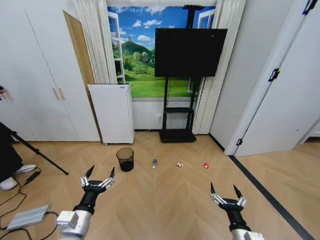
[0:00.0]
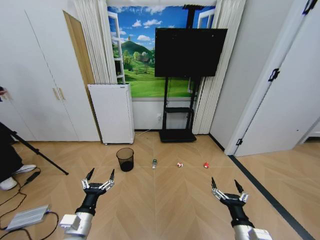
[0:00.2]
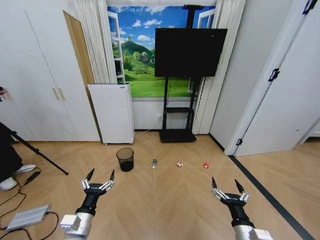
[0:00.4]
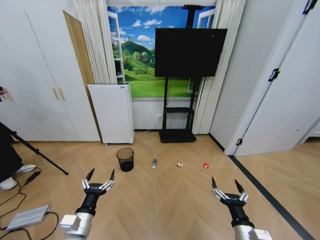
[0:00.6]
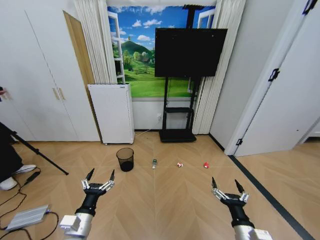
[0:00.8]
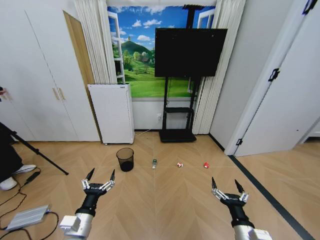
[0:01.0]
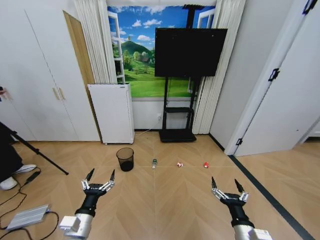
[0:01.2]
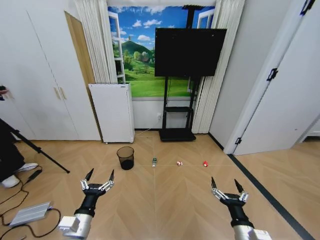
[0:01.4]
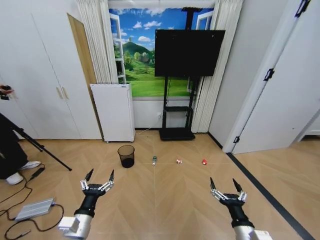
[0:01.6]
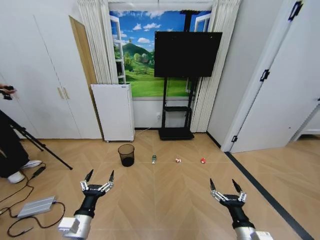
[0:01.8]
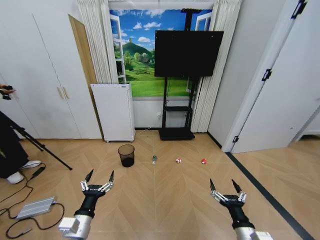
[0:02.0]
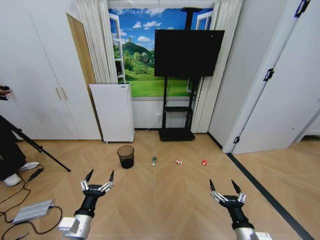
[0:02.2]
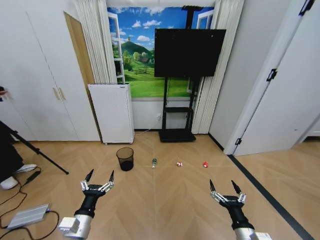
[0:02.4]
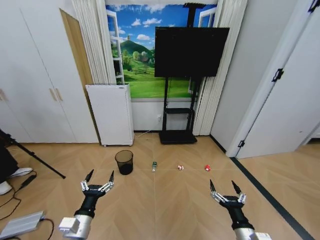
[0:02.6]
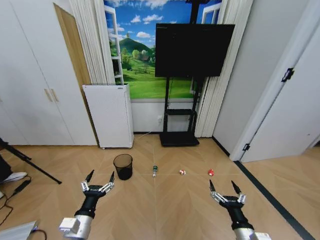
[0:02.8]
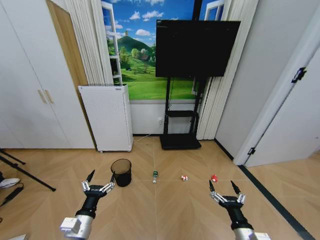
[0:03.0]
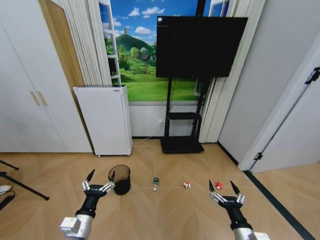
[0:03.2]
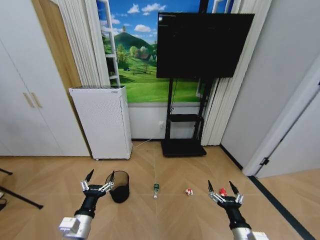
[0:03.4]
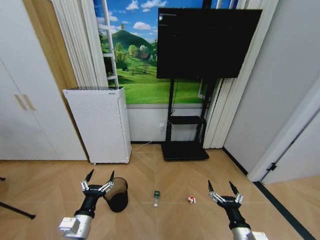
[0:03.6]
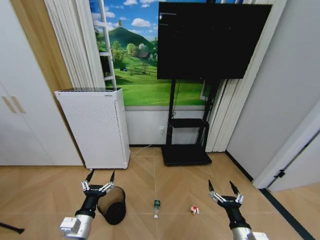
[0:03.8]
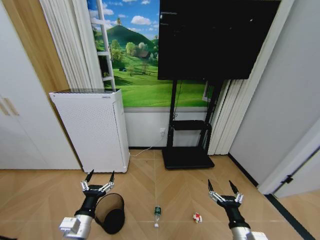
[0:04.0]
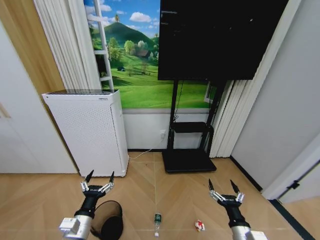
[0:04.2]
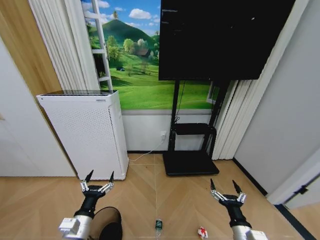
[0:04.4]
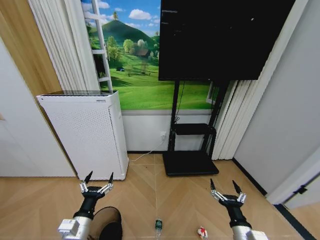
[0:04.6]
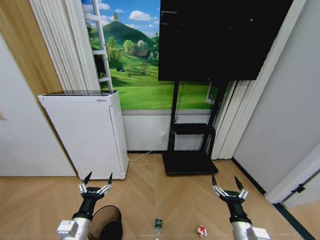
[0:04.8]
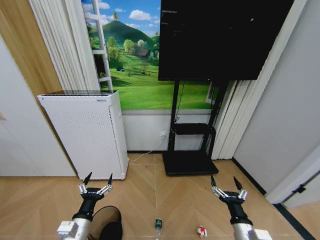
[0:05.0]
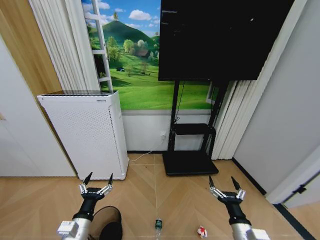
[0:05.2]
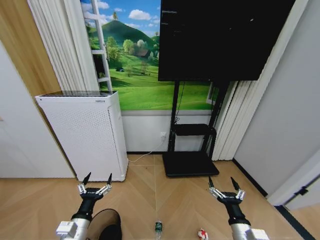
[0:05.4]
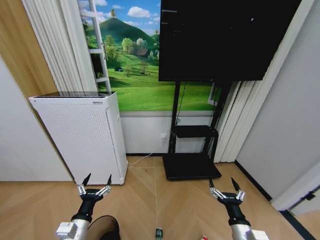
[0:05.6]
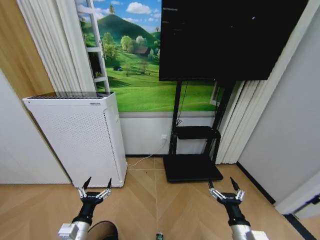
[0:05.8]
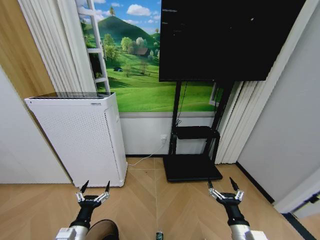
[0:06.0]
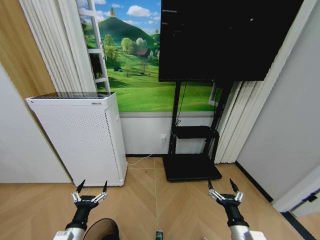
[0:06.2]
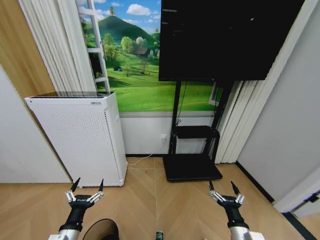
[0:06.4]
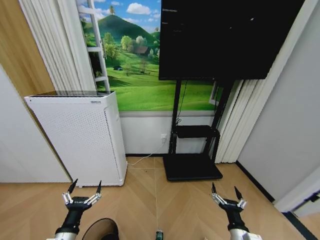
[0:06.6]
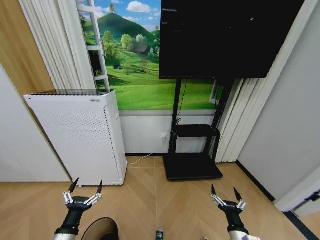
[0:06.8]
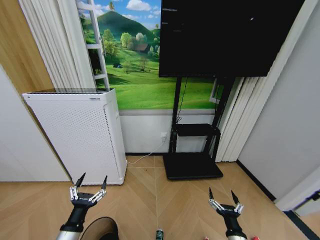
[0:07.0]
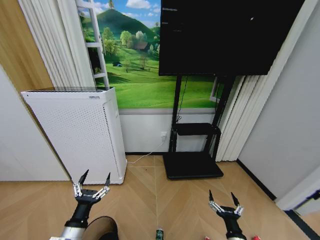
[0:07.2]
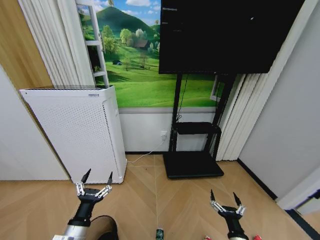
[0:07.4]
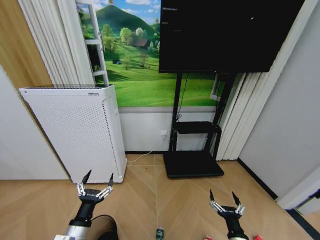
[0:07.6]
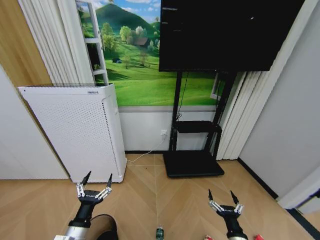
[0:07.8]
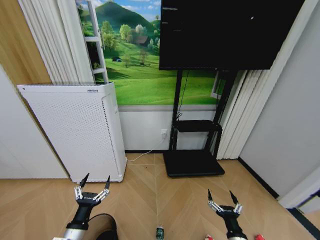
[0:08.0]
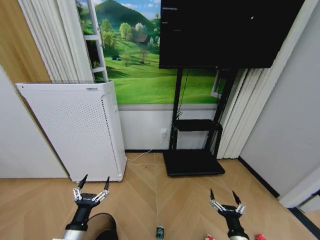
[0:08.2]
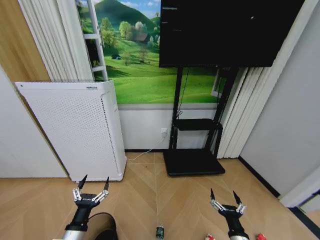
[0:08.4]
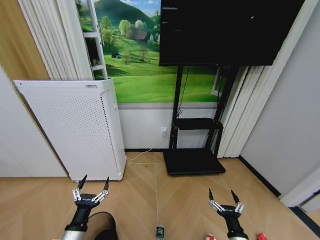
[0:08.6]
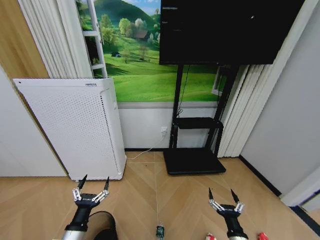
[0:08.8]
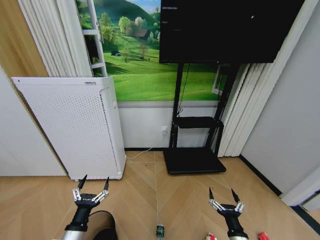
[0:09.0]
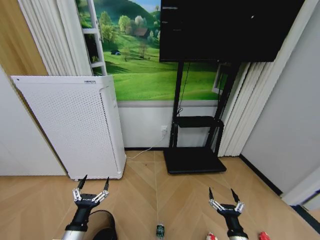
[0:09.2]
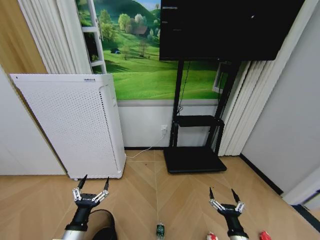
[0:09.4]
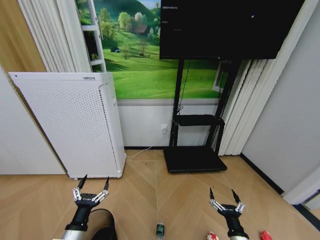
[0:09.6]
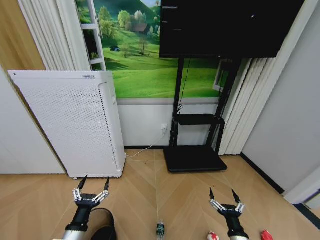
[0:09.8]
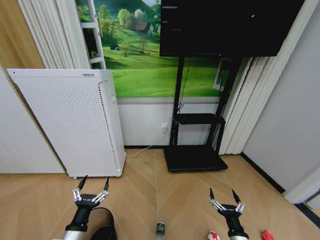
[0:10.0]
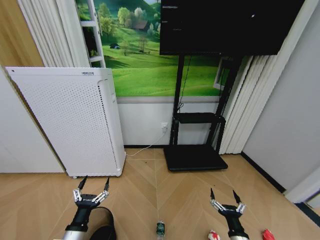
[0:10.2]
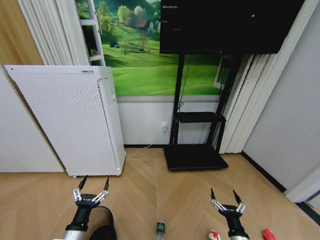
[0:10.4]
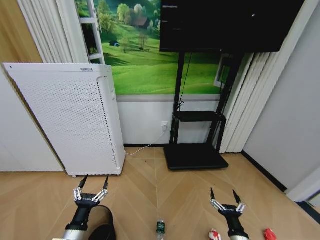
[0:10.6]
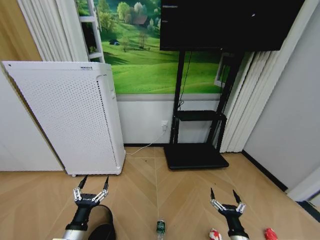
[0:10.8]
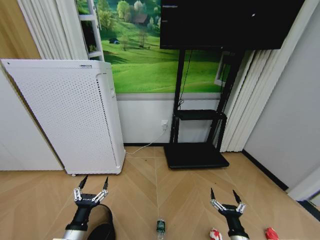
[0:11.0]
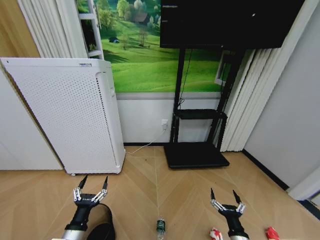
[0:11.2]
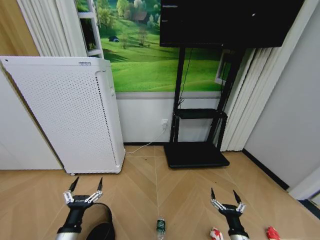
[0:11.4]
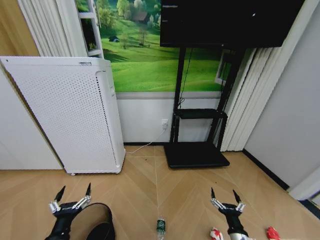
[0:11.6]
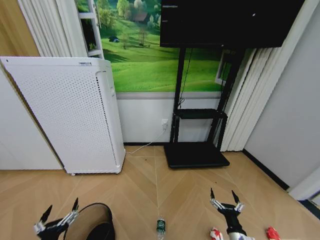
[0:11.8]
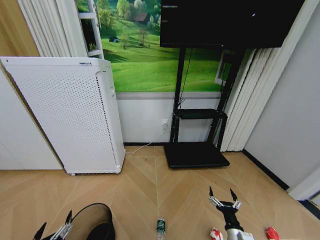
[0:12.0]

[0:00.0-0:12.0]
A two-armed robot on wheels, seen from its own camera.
Task of the whole recording: Pick up the trash bin and place the garbage on the floor into it.
0:06.0 to 0:07.6: The right gripper is displaced downward by roughly 5 cm.
0:07.6 to 0:09.0: The grippers make only small movements.
0:09.0 to 0:10.4: Both grippers stay put.
0:10.4 to 0:12.0: The left gripper is displaced backward and to the left by roughly 10 cm.

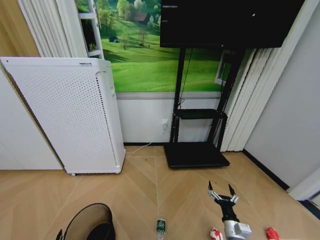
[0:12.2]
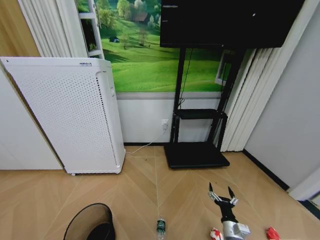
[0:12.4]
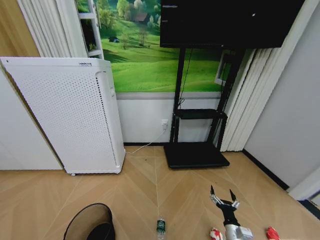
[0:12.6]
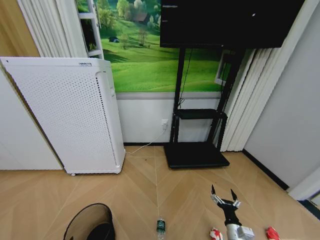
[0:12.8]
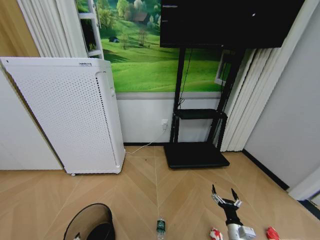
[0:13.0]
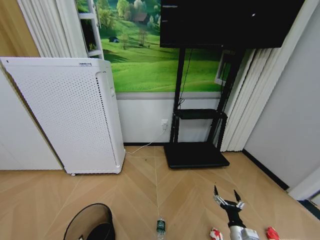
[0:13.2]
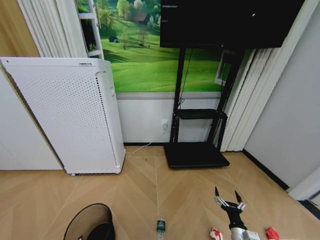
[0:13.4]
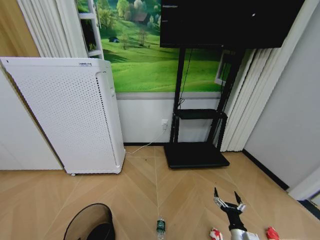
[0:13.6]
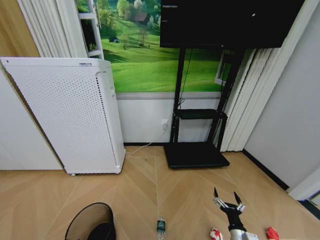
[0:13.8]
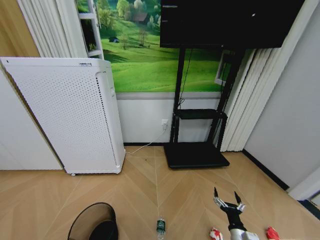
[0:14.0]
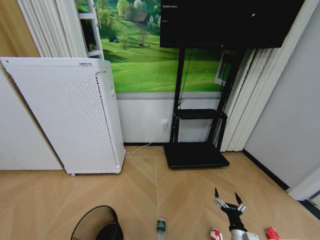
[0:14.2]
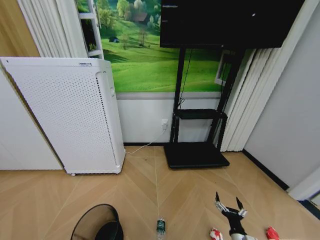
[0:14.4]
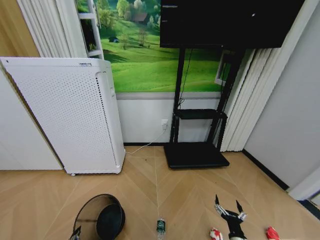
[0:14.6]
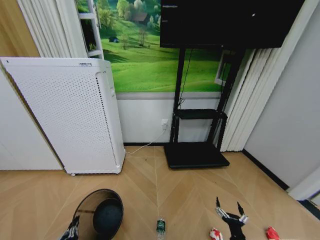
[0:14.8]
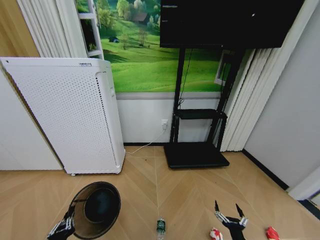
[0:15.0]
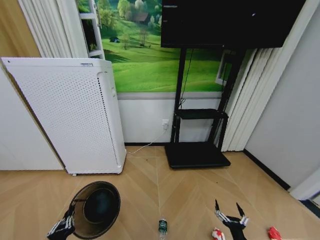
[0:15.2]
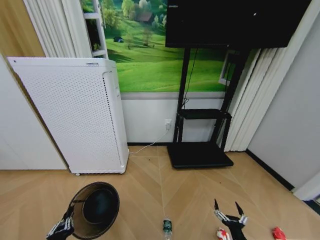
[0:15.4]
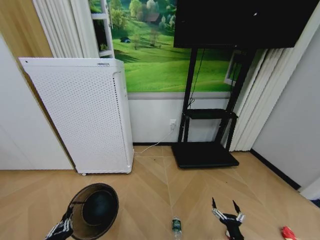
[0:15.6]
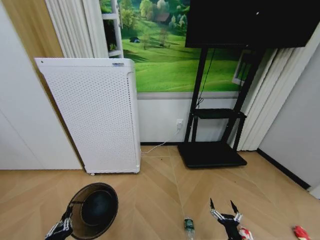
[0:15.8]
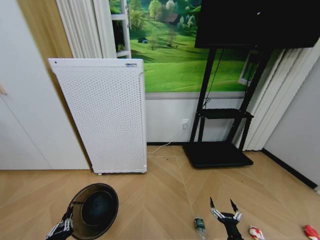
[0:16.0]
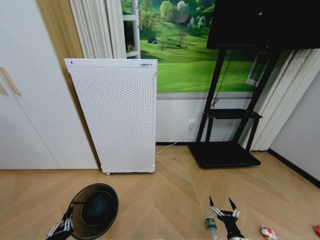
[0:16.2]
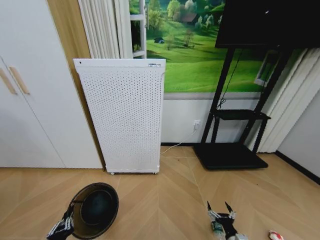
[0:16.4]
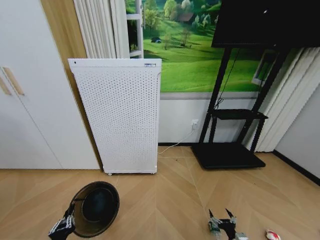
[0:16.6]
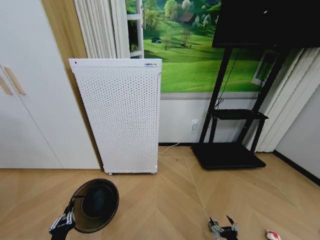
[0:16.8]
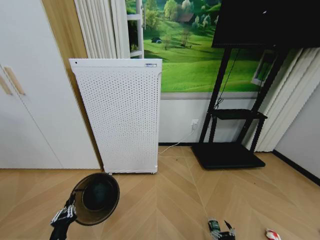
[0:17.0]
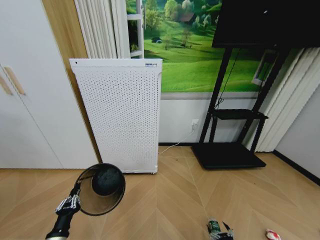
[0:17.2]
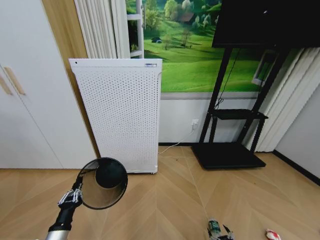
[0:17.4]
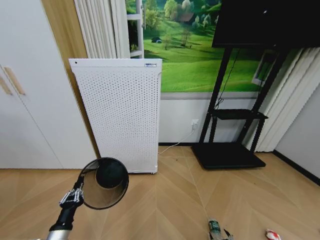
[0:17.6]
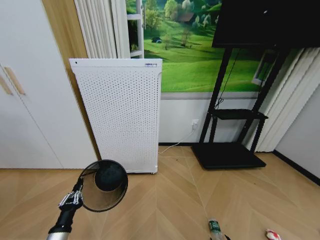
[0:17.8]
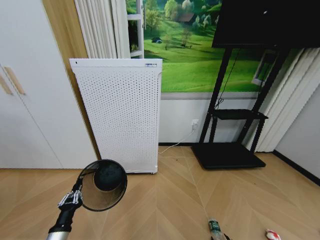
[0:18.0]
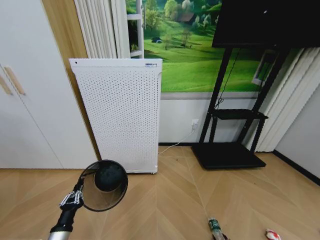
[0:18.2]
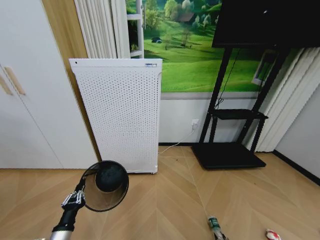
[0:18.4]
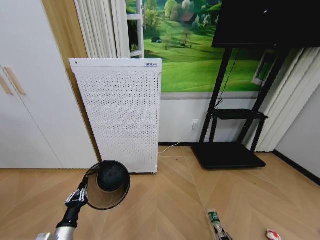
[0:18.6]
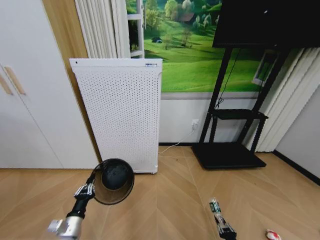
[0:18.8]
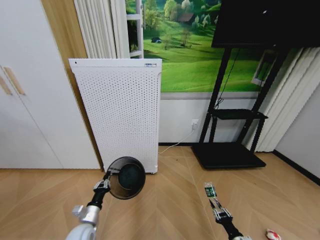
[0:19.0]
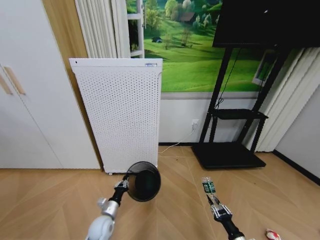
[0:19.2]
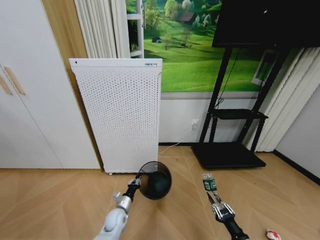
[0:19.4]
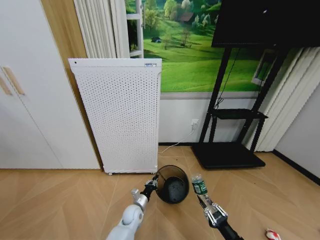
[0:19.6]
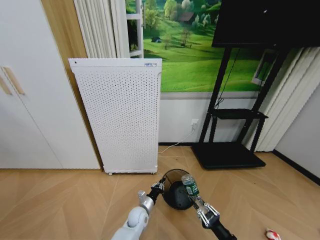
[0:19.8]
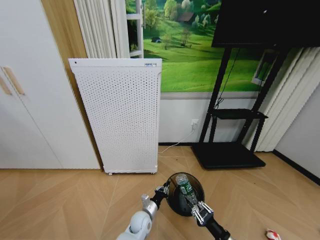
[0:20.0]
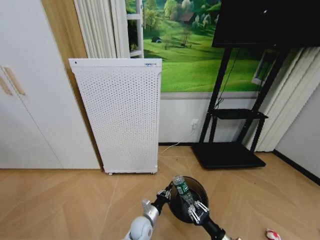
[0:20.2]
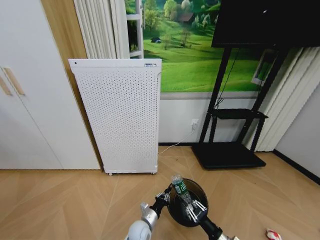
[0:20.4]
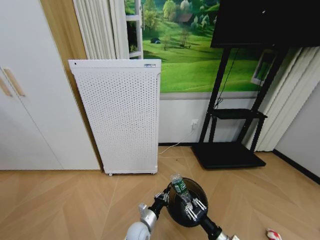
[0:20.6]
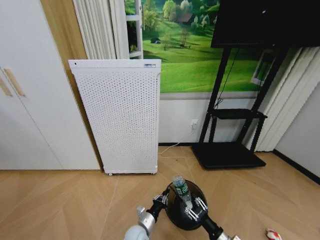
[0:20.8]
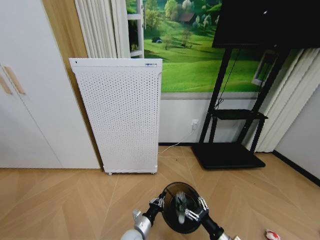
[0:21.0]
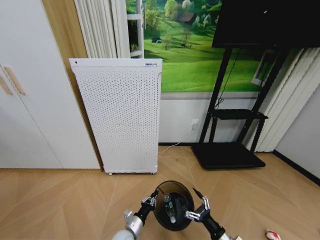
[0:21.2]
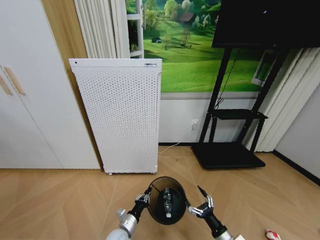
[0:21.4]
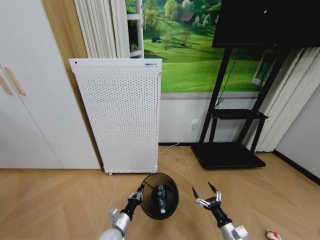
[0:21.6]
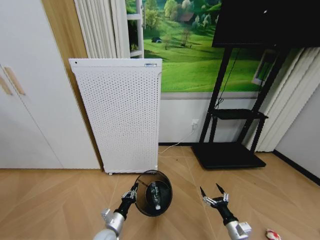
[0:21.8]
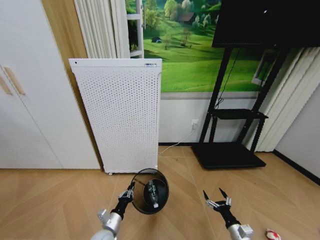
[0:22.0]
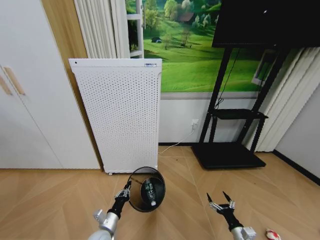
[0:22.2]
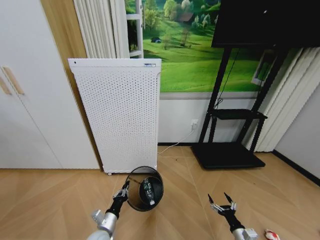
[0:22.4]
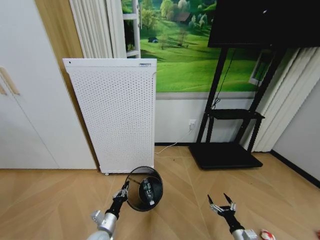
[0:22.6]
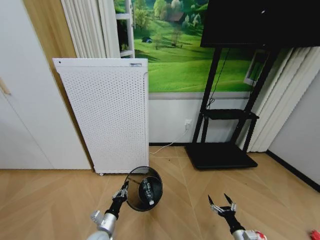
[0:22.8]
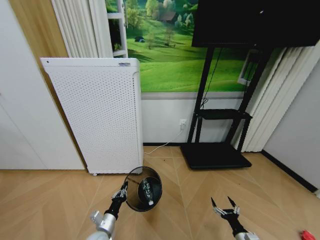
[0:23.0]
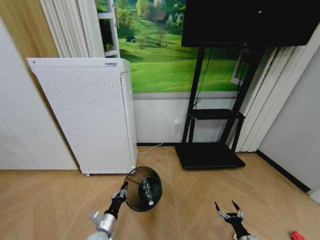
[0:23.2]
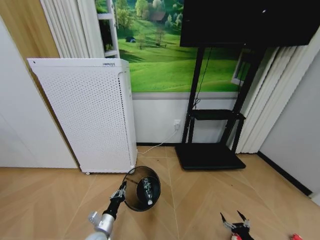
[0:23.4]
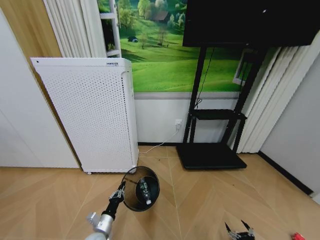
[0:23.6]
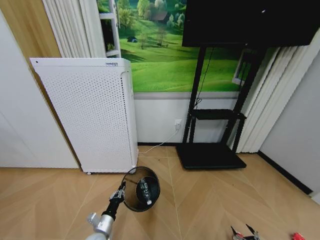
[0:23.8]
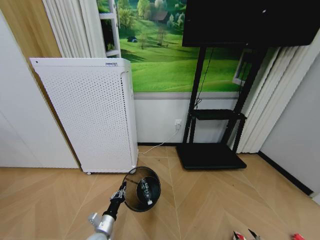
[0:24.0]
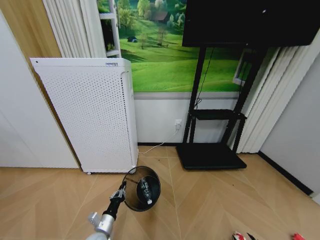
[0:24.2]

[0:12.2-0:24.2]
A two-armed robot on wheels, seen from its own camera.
Task of the whole recording: Pick up the trash bin and place the garbage on the floor into it.
0:13.8 to 0:15.2: The right gripper ends up roughly 5 cm from where it was. The left gripper closes its fingers.
0:15.2 to 0:16.6: The right gripper shifts by some 5 cm.
0:16.6 to 0:18.2: The right gripper moves downward, about 10 cm, and closes. The left gripper is displaced forward by some 5 cm.
0:18.2 to 0:19.8: The left gripper moves to the right, forward and downward, about 35 cm. The right gripper shifts roughly 20 cm upward, and closes its fingers.
0:19.8 to 0:21.2: The left gripper moves backward, approximately 10 cm. The right gripper opens.
0:21.2 to 0:22.6: The left gripper travels to the left by roughly 10 cm. Meanwhile the right gripper moves to the right and downward, some 15 cm.
0:22.6 to 0:24.2: The right gripper moves to the right, backward and downward, roughly 15 cm.
